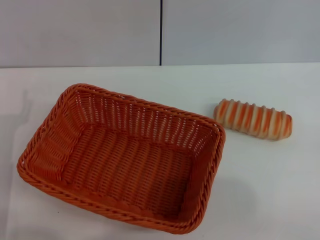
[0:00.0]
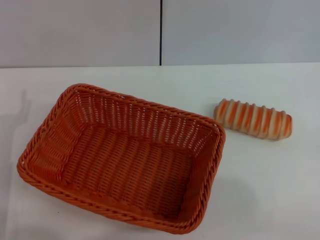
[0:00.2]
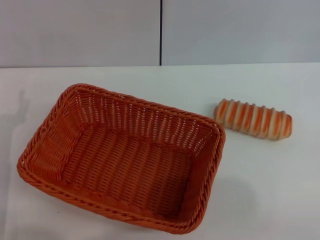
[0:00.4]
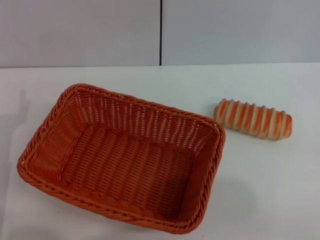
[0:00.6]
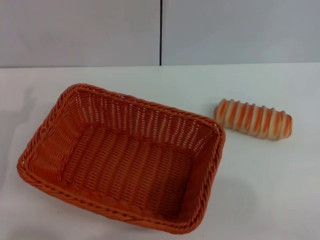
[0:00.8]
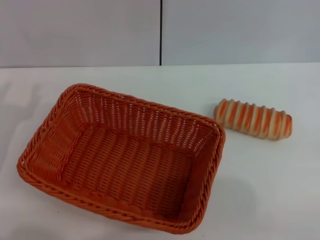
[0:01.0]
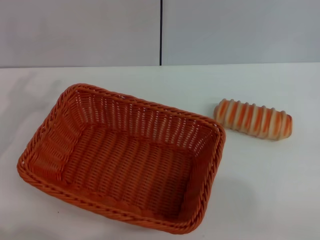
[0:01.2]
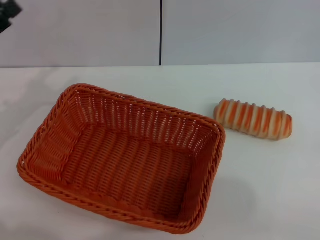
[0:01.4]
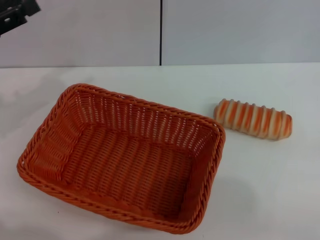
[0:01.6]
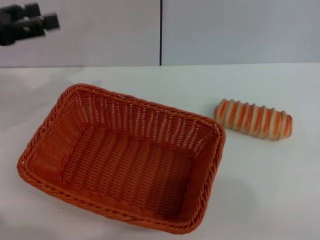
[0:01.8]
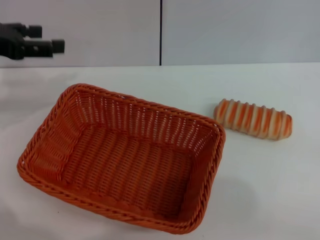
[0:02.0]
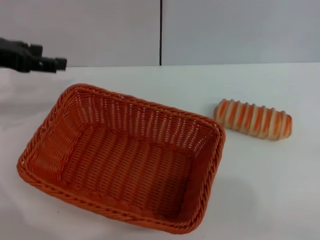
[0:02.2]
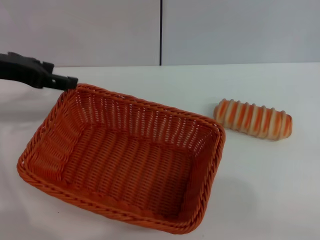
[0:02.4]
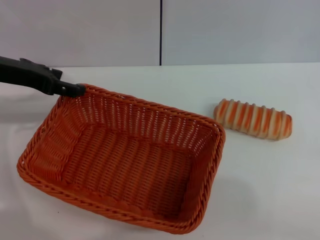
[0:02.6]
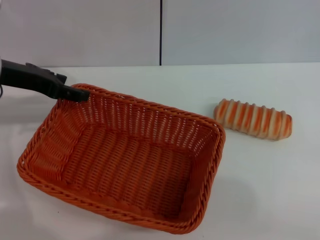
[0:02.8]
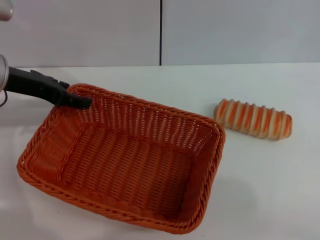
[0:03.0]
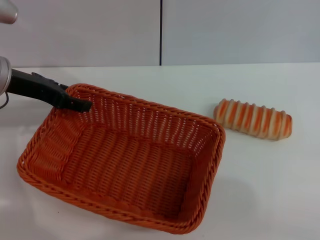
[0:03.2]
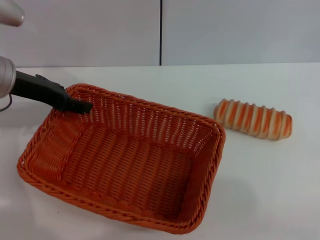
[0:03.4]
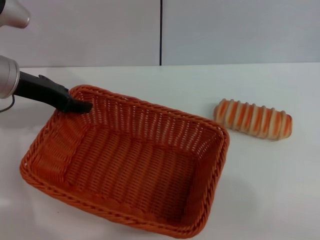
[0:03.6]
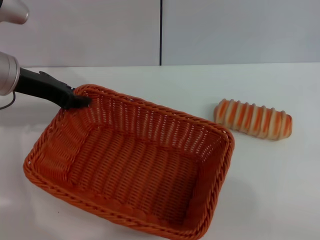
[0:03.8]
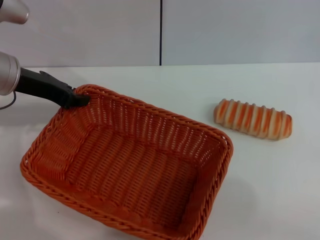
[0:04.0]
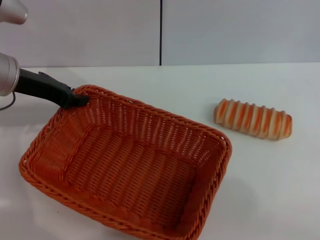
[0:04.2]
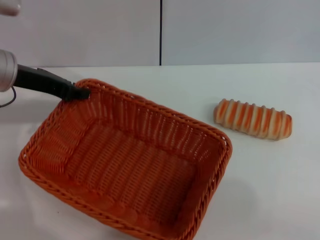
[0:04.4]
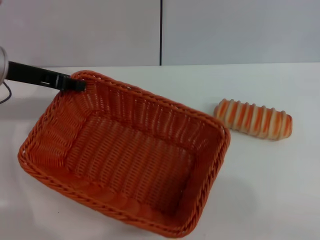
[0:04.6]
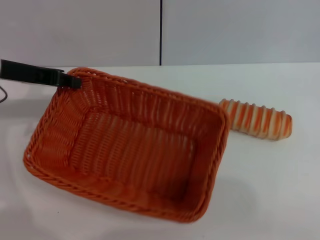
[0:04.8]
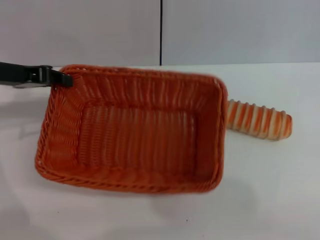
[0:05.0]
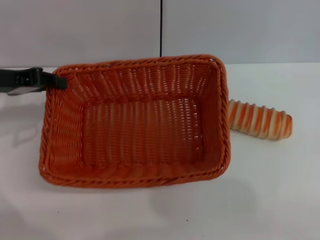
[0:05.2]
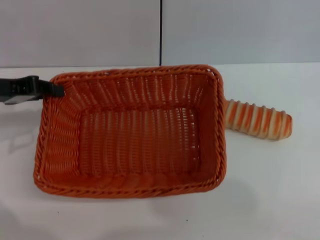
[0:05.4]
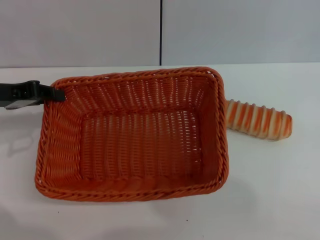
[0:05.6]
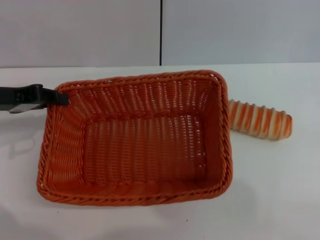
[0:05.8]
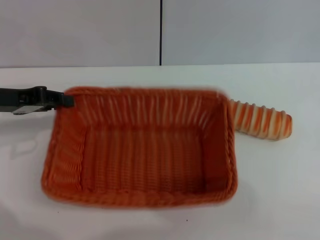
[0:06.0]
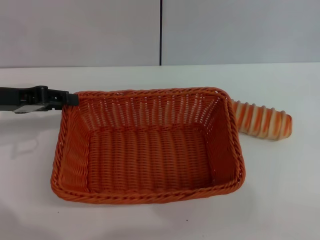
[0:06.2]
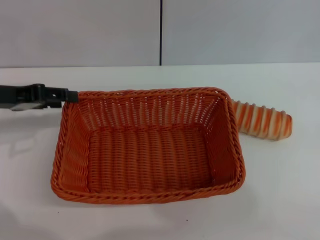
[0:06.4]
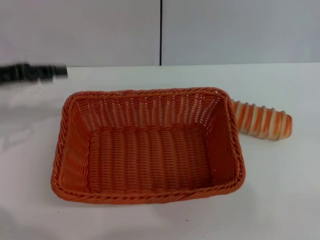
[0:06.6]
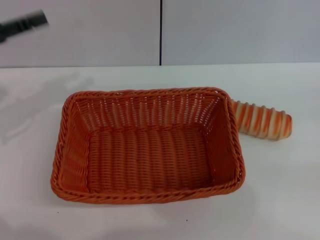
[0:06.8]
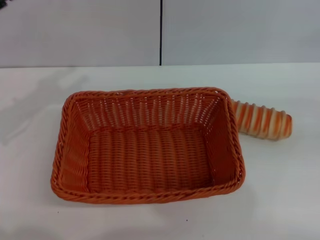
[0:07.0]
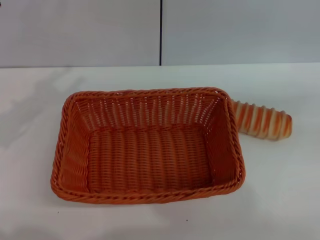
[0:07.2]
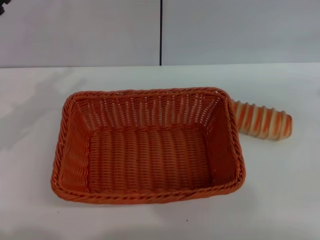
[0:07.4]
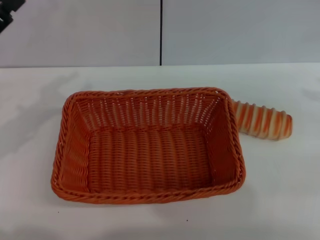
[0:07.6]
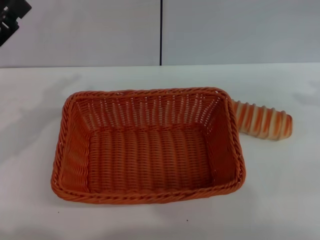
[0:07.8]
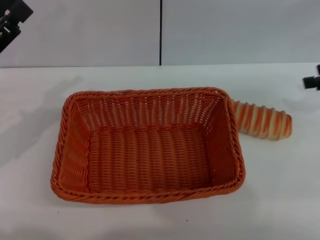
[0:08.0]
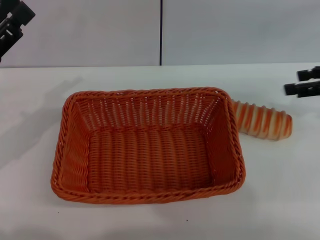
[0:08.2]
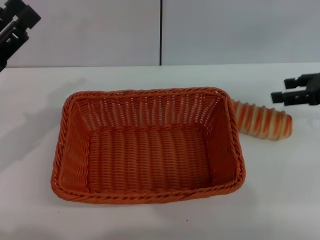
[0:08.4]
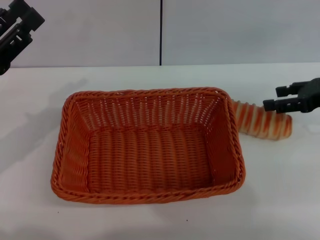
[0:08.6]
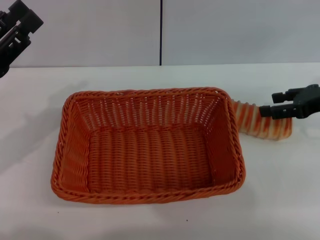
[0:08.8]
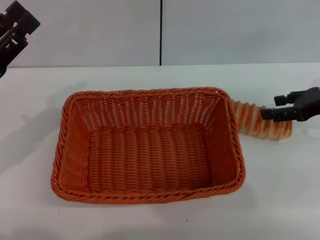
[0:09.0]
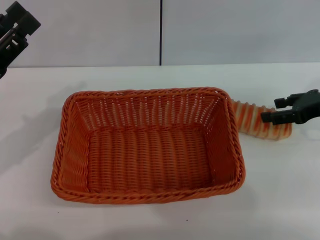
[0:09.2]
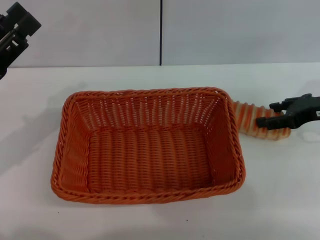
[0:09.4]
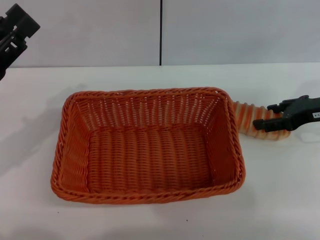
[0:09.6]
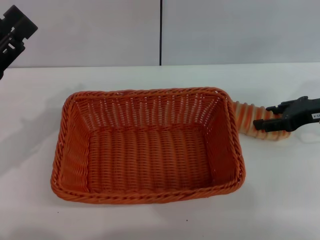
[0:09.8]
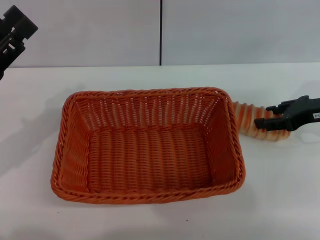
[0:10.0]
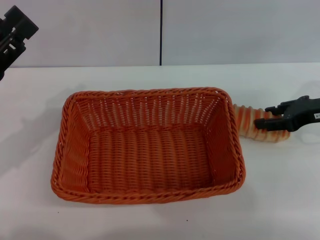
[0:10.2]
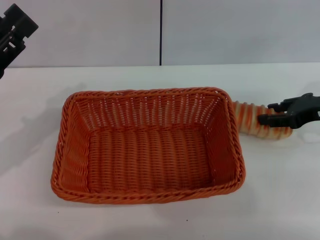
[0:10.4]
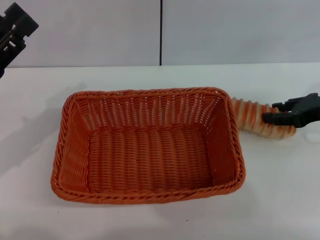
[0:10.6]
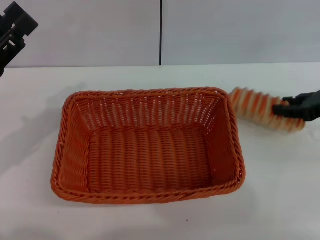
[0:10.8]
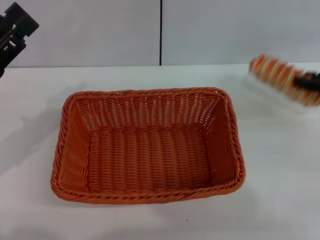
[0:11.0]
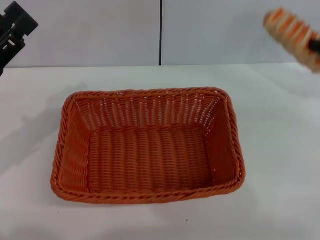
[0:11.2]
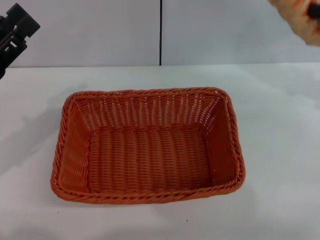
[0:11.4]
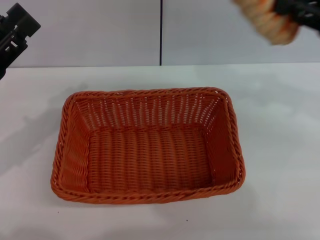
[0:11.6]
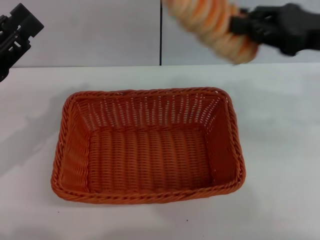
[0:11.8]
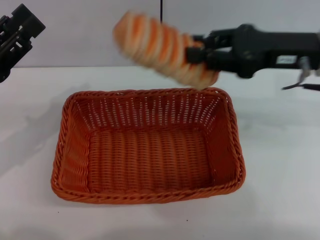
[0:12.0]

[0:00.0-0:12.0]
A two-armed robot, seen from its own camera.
Step, 0:00.0 to 0:04.8: Pick up the light basket with the left gripper.
Step, 0:05.2 to 0:06.4: Place the light basket in the center of view with the left gripper.
Step, 0:06.6 to 0:11.0: Pick up the long bread with the right gripper.
0:00.0 to 0:01.6: The left gripper moves upward, forward and to the left, about 15 cm.
0:01.6 to 0:03.0: The left gripper goes approximately 10 cm to the right.
0:03.0 to 0:04.4: The left gripper closes up.
0:04.4 to 0:06.0: The left gripper goes about 5 cm to the left.
0:06.0 to 0:07.6: The left gripper moves roughly 5 cm, and opens. The right gripper is displaced upward and forward by about 25 cm.
0:07.6 to 0:09.0: The right gripper moves downward and to the left, roughly 15 cm.
0:09.0 to 0:10.4: The right gripper closes.
0:10.4 to 0:12.0: The right gripper travels to the left and upward by approximately 15 cm, and closes up.

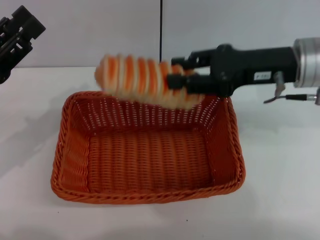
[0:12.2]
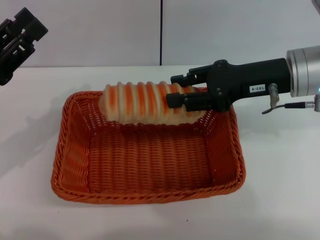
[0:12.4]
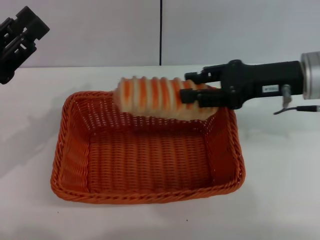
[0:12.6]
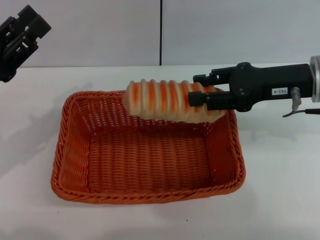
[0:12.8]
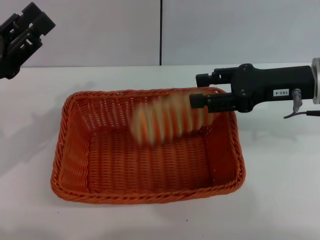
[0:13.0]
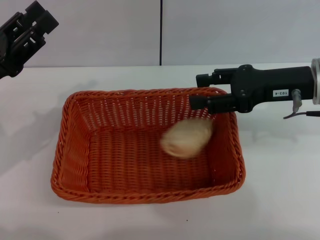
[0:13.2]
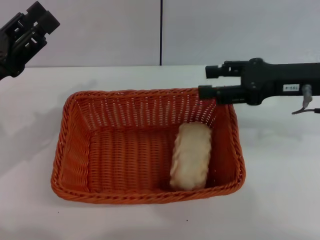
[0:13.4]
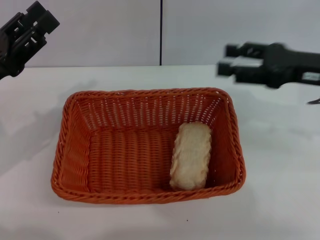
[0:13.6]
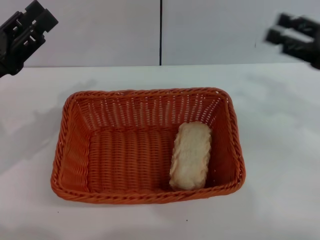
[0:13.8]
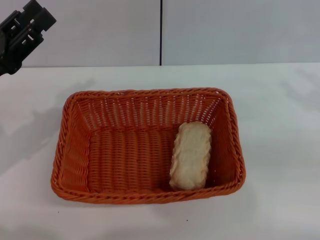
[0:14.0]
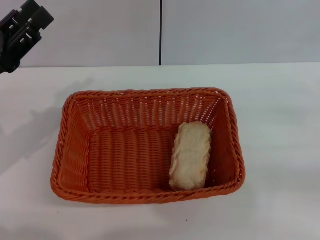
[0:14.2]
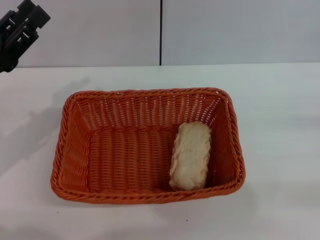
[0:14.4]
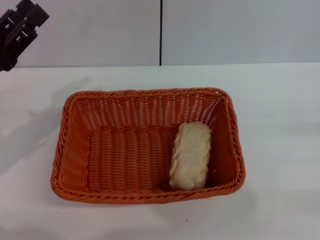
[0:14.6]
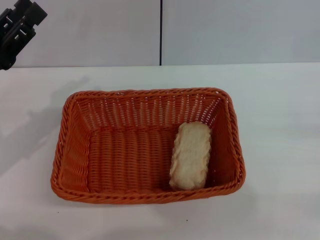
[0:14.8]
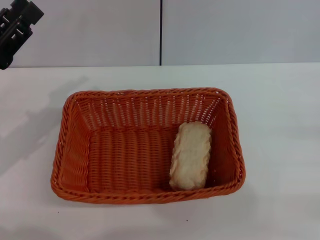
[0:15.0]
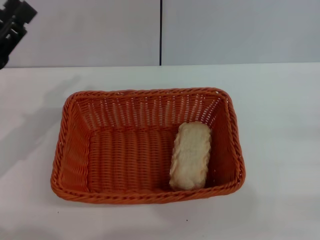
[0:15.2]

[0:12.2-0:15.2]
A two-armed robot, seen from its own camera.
Step, 0:12.2 to 0:13.4: Place the long bread into the light basket with the right gripper.
0:12.2 to 0:13.8: The right gripper is displaced to the right by about 15 cm, and opens.
0:13.8 to 0:15.2: The right gripper is displaced to the right, backward and downward by roughly 15 cm.
